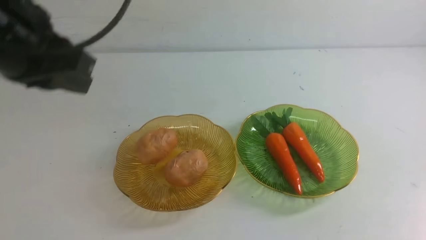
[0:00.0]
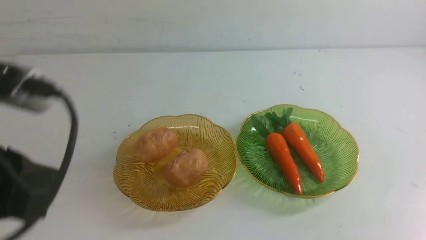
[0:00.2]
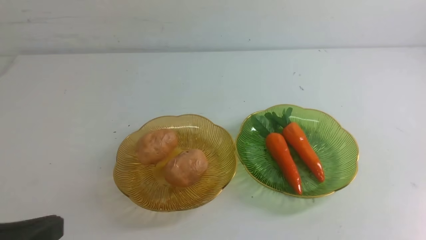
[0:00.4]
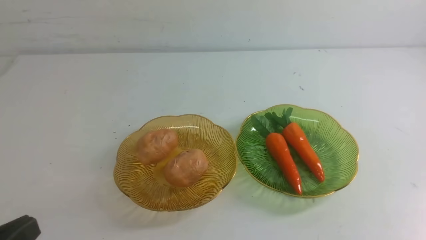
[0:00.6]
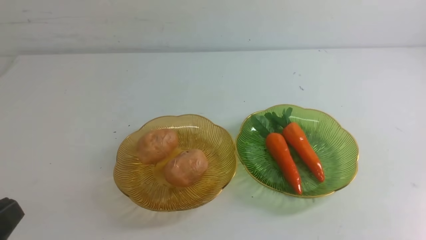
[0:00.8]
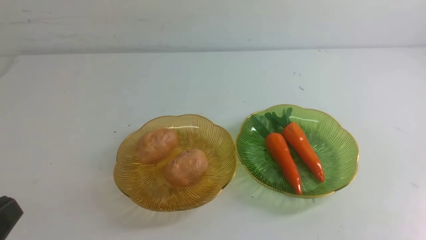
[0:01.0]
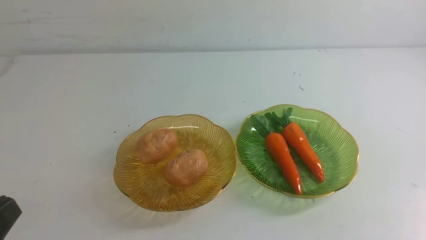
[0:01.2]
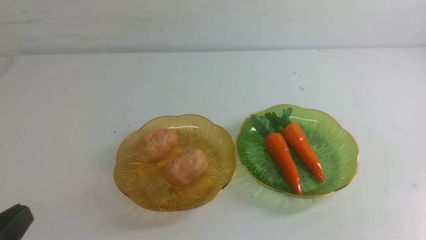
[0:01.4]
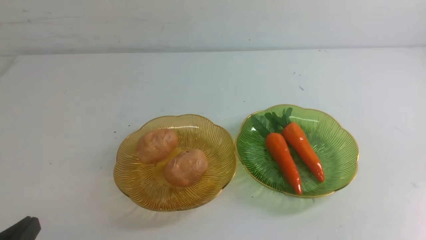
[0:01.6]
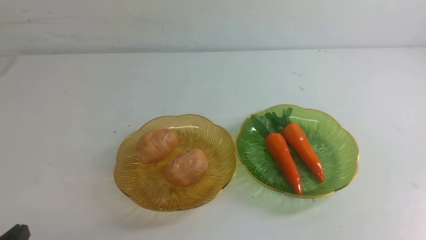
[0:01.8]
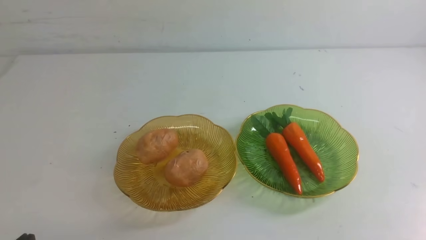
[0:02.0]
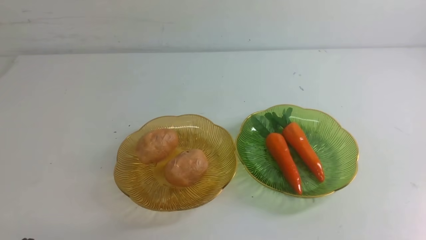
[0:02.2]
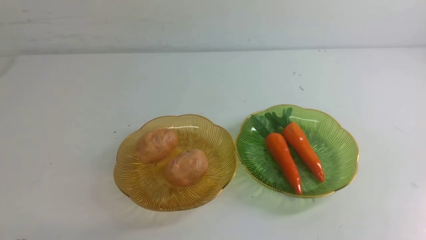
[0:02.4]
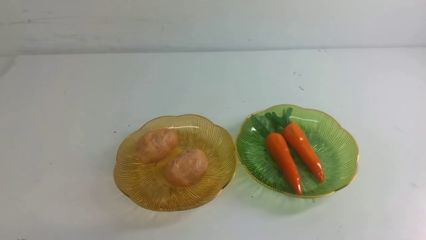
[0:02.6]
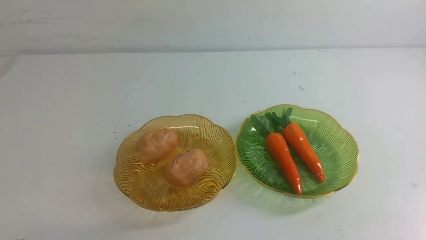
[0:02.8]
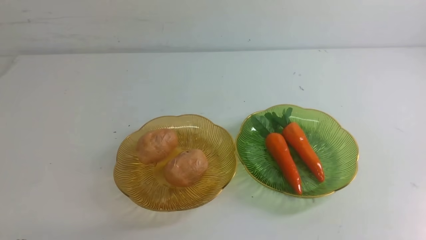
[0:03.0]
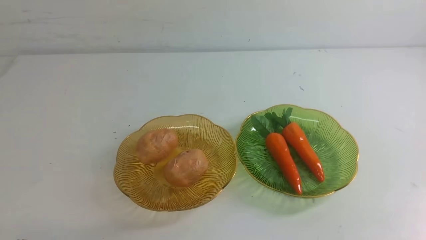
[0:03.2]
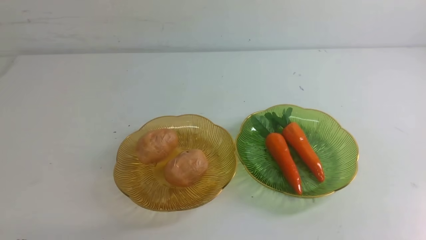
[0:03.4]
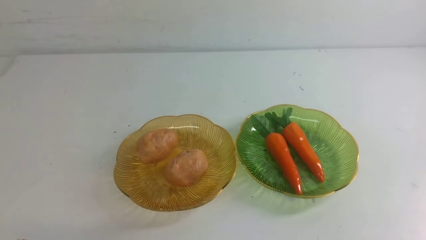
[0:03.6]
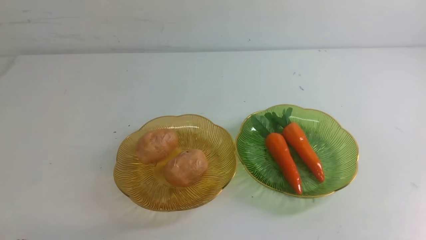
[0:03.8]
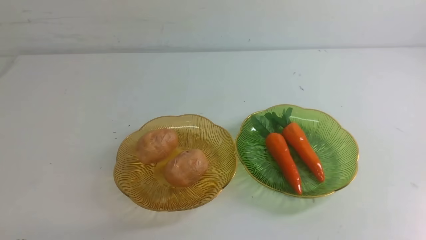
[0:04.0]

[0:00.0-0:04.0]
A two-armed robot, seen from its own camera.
0:00.0 to 0:01.4: The left gripper shifts some 25 cm backward and downward.
0:01.4 to 0:02.6: The left gripper goes roughly 10 cm downward.
0:02.6 to 0:04.0: Both grippers stay put.
